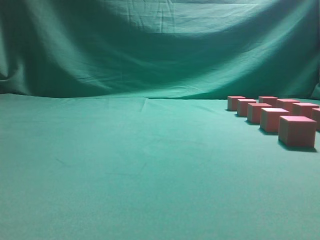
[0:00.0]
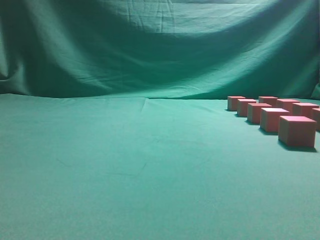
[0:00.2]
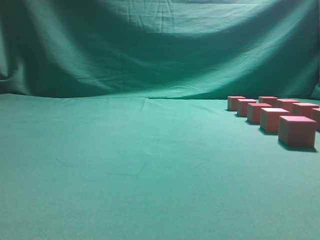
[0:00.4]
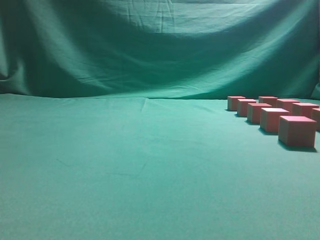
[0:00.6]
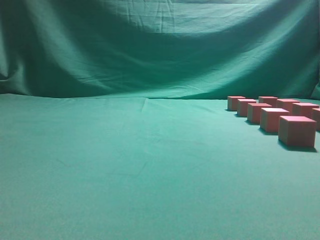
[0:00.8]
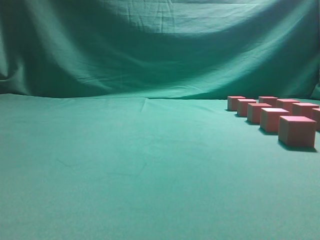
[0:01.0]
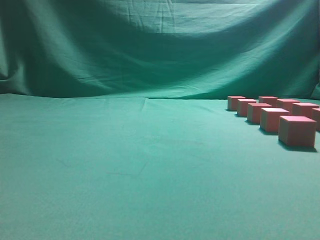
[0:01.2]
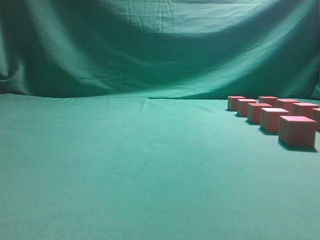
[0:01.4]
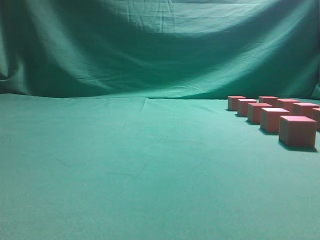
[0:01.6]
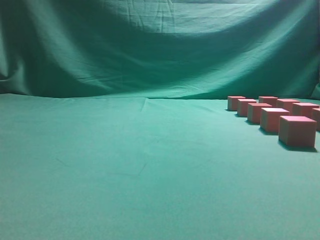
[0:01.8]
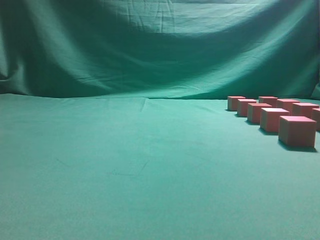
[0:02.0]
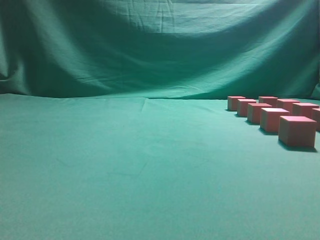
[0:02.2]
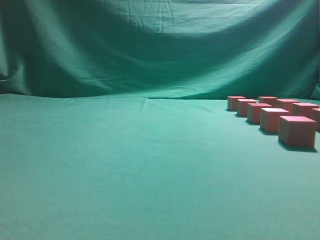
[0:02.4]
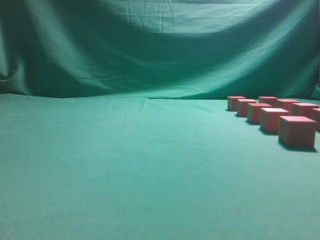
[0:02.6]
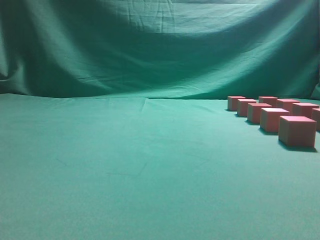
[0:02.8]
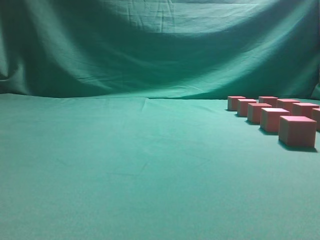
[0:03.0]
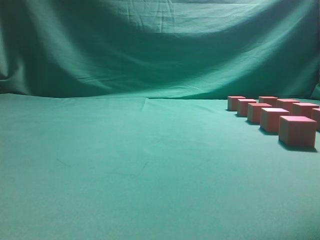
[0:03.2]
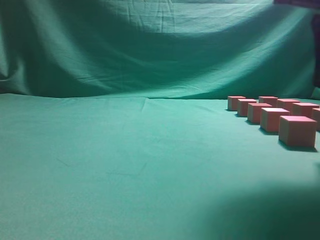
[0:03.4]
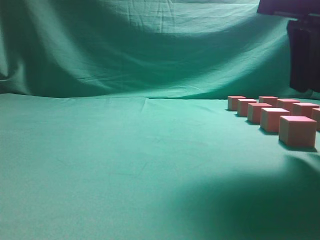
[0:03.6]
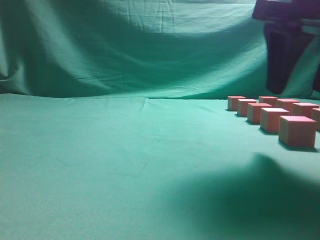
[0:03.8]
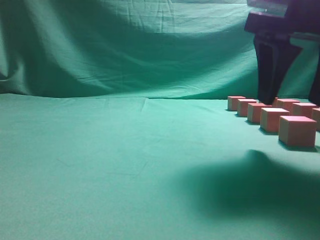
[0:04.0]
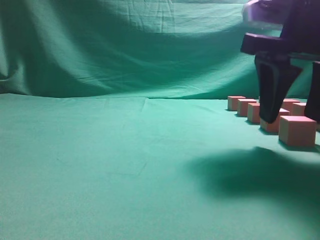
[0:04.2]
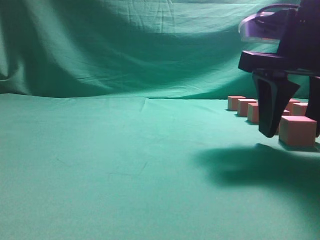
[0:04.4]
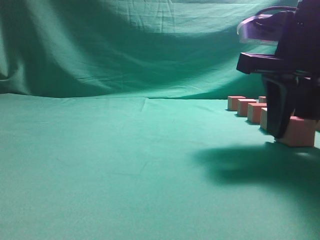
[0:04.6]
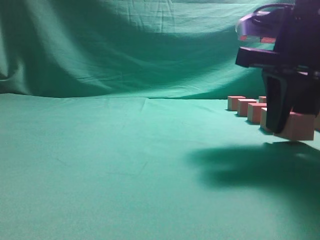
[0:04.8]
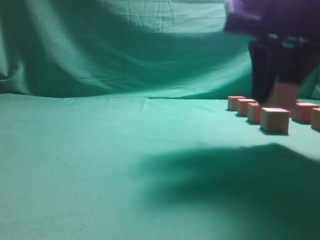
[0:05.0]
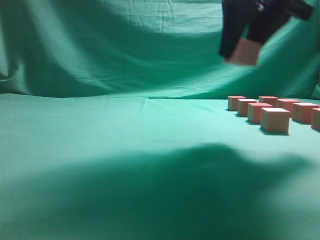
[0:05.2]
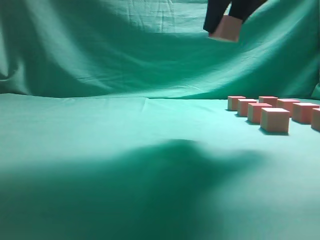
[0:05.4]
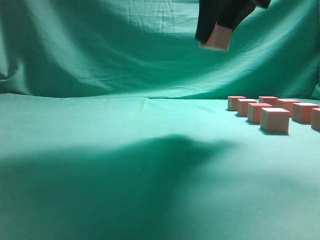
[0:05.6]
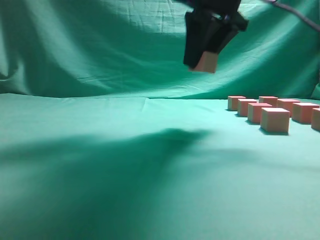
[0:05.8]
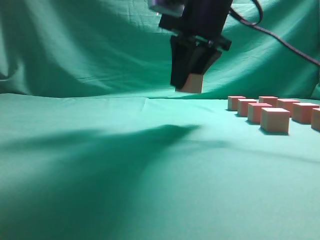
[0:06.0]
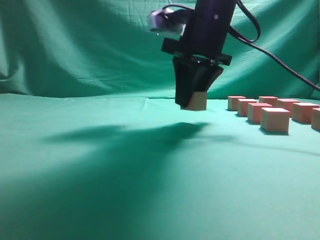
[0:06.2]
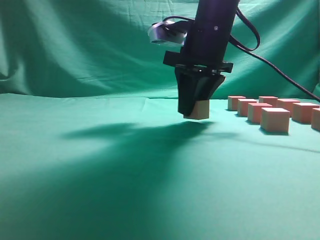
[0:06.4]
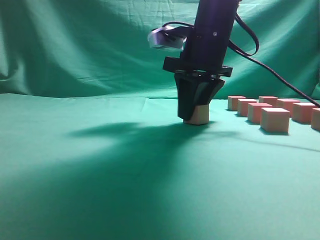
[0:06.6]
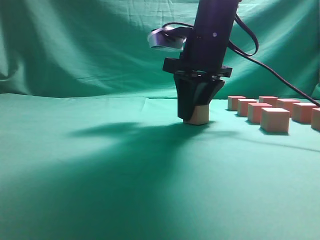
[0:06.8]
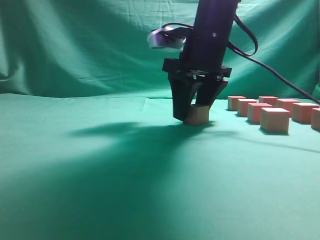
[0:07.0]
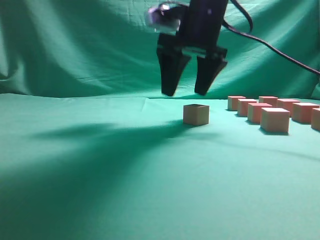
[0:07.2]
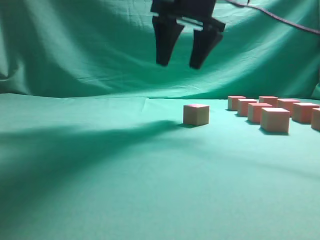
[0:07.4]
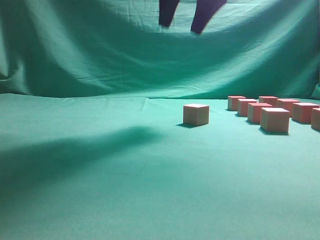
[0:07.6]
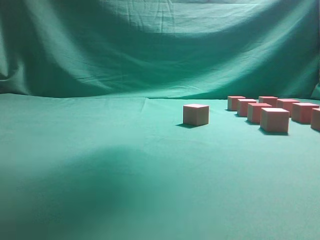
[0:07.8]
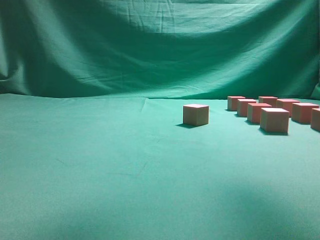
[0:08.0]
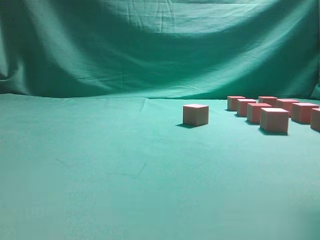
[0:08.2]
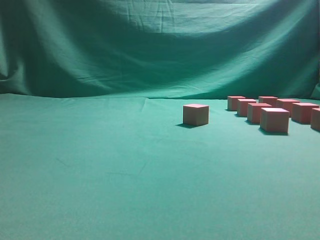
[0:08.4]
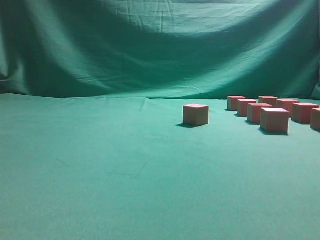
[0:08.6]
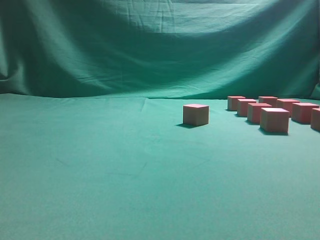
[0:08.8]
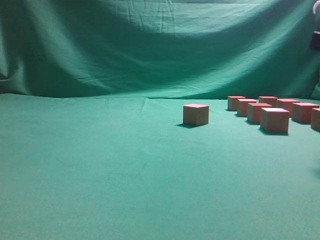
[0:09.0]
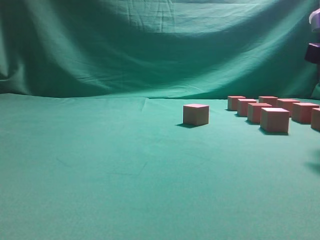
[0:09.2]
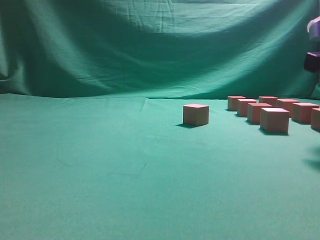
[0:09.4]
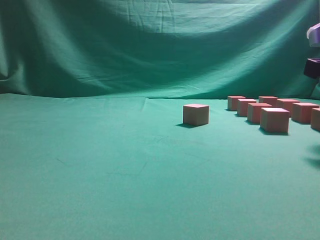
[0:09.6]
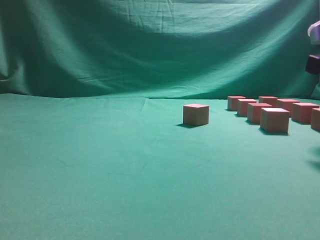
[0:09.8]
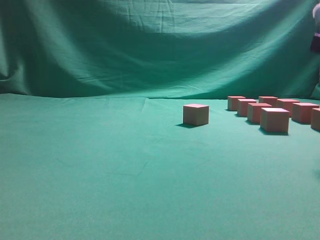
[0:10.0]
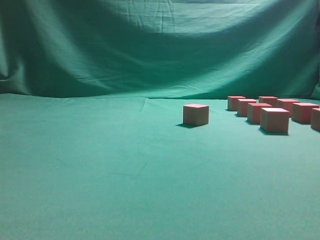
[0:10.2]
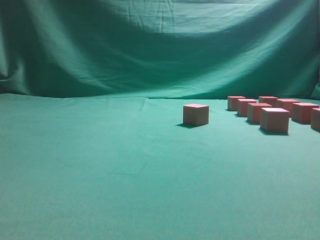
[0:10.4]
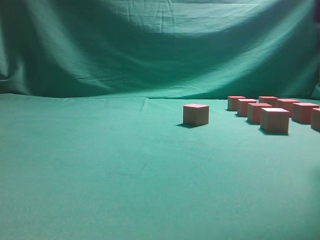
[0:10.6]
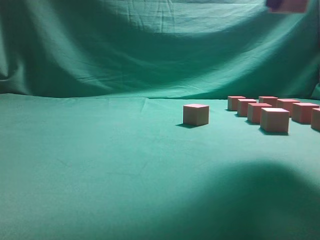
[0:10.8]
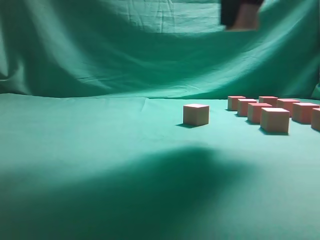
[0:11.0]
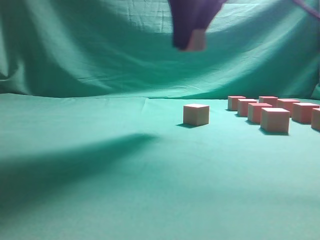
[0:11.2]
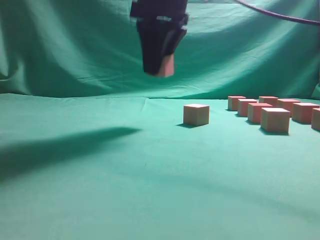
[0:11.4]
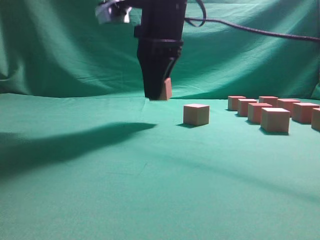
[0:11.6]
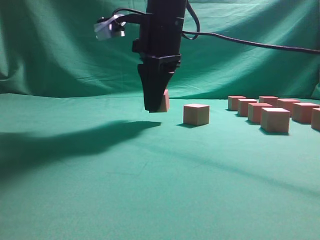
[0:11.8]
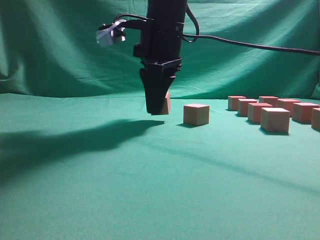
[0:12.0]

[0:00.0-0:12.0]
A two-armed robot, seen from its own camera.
Task of the whole recording: pick up the multiple cubes in two columns one by one and place them in another position on the table.
Step, 0.0 to 5.2 s: Pick up the block on the table.
Step, 5.4 to 7.4 s: Place the block at the correct position to assemble the letter S.
Step, 7.6 to 10.4 s: Pick up the block on the table.
3.0 to 4.4 s: The right gripper heads downward and forward, covering roughly 15 cm, and opens up.
4.4 to 6.0 s: The right gripper goes some 15 cm forward, to the left and upward, and closes.
6.0 to 7.6 s: The right gripper shifts roughly 10 cm upward, and opens up.
7.6 to 9.0 s: The right gripper shifts about 25 cm to the right, downward and backward.
10.4 to 12.0 s: The right gripper is displaced to the left and forward by about 25 cm.

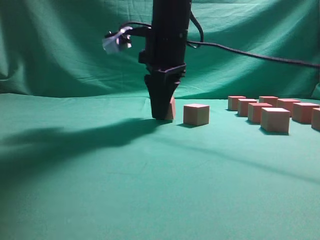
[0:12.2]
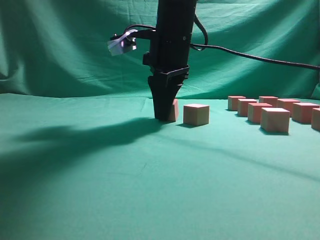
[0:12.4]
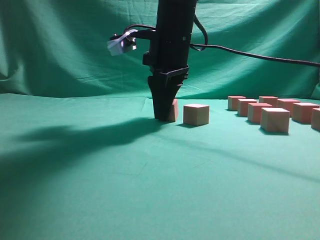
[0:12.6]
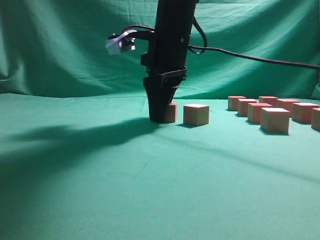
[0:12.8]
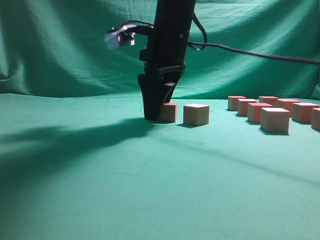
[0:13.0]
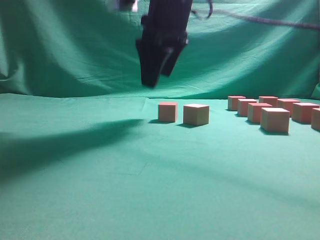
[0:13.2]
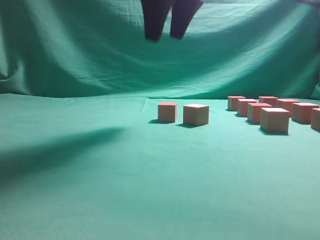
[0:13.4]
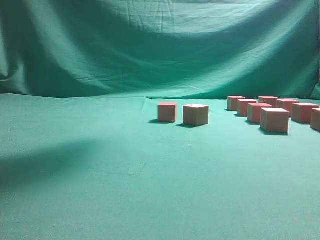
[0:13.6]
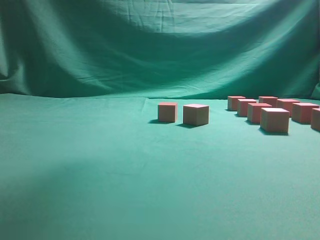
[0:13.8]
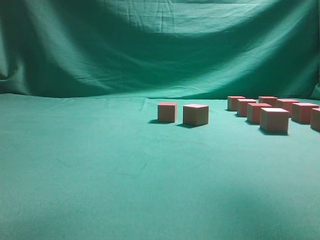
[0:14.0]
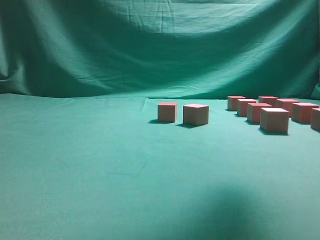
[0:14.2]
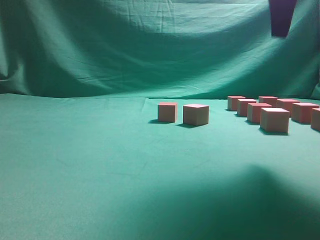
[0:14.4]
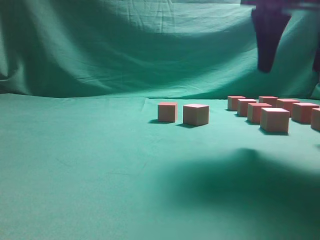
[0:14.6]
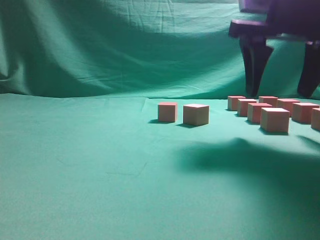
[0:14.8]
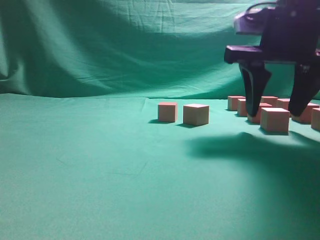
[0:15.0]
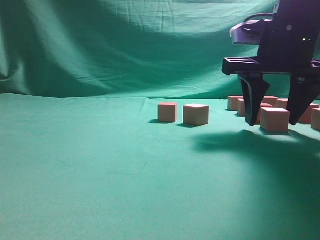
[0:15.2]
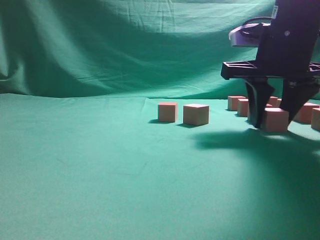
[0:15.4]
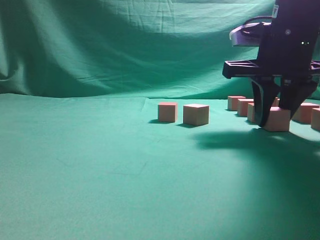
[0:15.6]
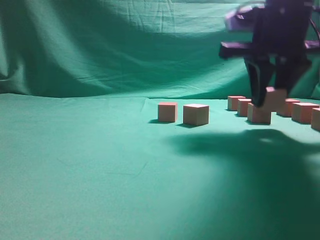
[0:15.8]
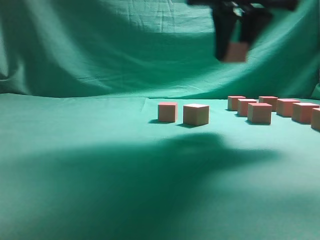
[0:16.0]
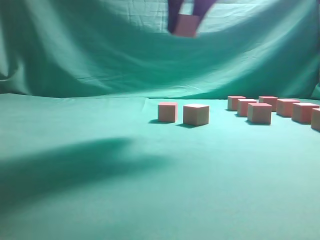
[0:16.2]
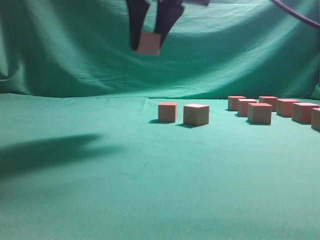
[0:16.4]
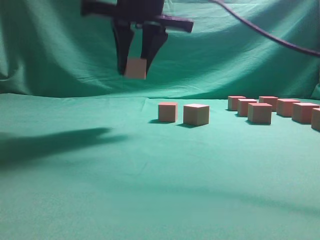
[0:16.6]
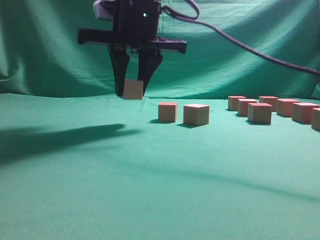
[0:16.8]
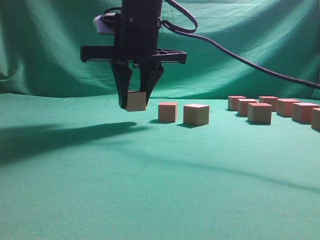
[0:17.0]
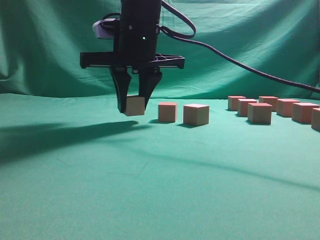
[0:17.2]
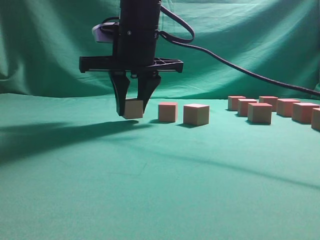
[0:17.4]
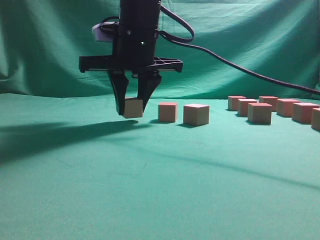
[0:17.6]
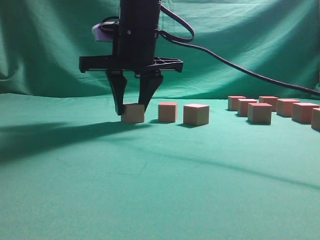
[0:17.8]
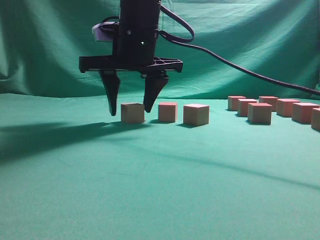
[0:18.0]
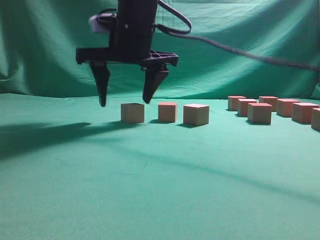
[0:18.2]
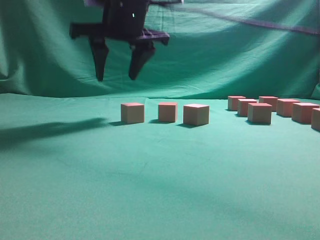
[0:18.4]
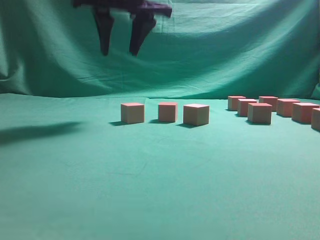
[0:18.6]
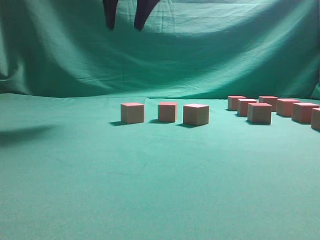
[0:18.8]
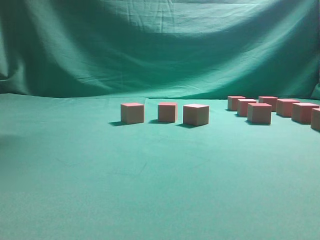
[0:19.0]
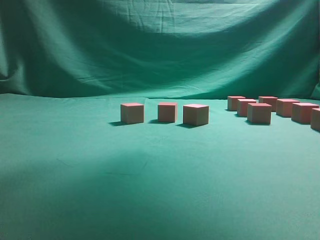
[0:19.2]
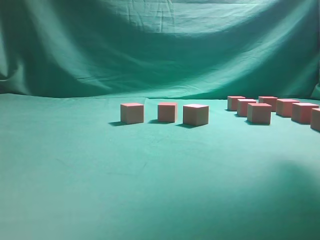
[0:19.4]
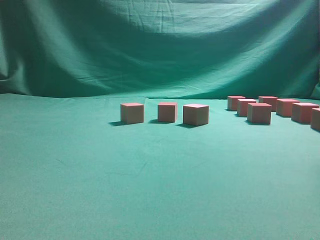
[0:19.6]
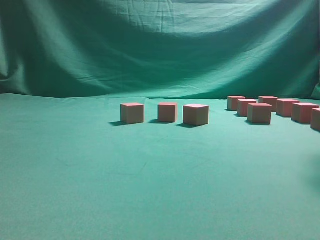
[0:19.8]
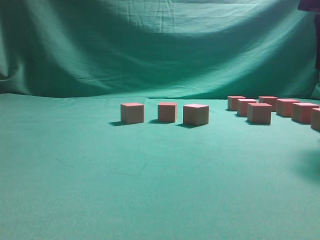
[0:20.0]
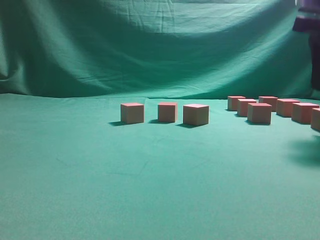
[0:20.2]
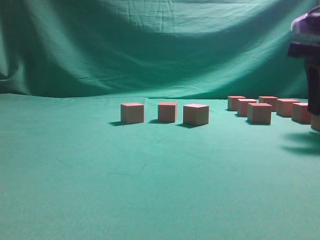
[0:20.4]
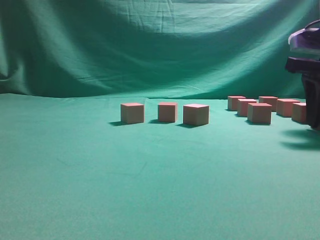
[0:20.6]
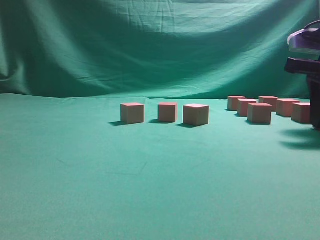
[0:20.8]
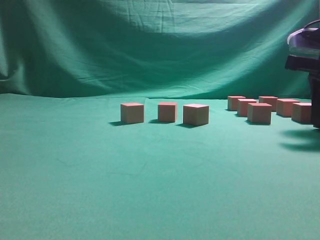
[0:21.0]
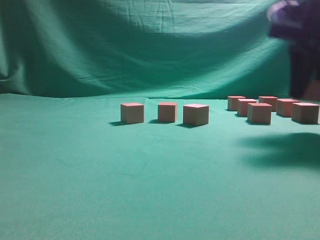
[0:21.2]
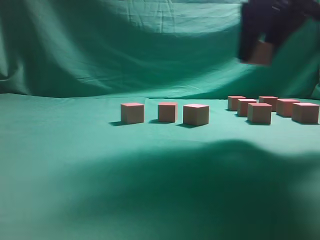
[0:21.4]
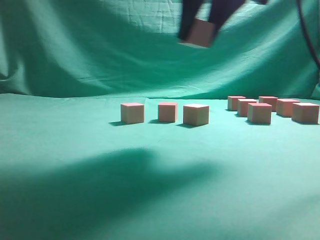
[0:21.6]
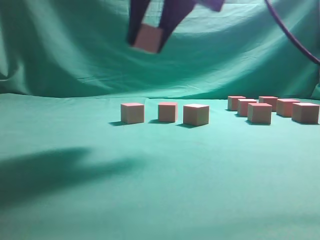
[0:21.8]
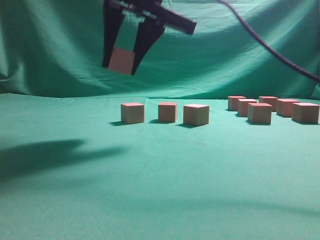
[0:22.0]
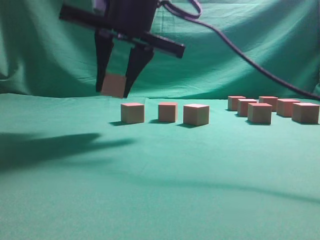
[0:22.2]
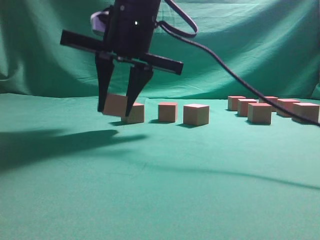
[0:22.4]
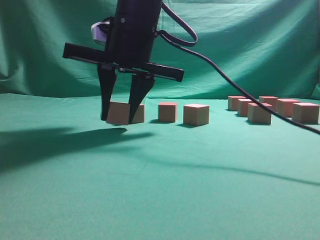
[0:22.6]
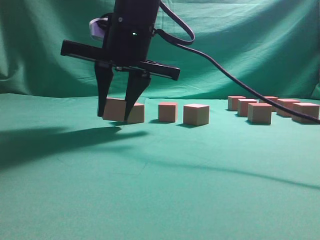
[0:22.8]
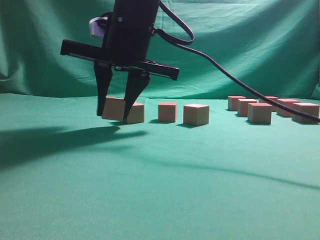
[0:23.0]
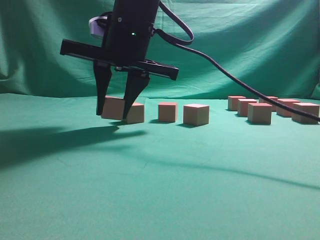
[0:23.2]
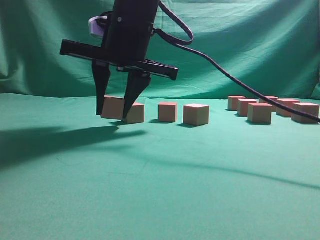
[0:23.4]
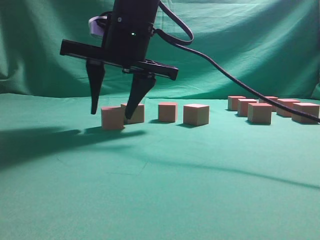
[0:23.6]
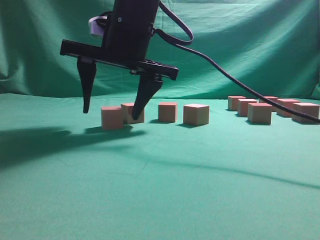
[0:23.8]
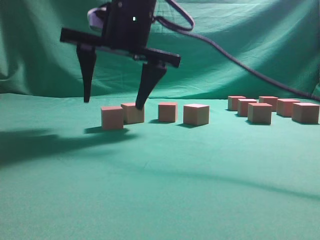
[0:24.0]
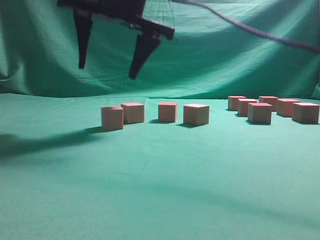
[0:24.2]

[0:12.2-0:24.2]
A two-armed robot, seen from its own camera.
Task of the whole recording: pick up the multiple cubes in two columns one by one and place them in another position on the table.
Step, 13.4 to 16.0 s: Pick up the block on the table.
Step, 16.4 to 18.6 s: Place the block at the correct position to assemble the letter S.
Step, 18.8 to 21.2 s: Pick up the block on the table.
Step, 21.4 to 24.2 s: Place the block at the correct position to assemble the letter S.
12.2 to 13.8 s: The right gripper is displaced upward and to the right by some 25 cm, and opens up.
13.8 to 15.2 s: The right gripper shifts some 25 cm downward.
15.2 to 16.6 s: The right gripper moves to the left, approximately 20 cm.
16.6 to 18.2 s: The right gripper shifts by approximately 5 cm, and opens.
18.2 to 19.8 s: The right gripper travels to the right by roughly 30 cm.
19.8 to 21.2 s: The right gripper moves roughly 5 cm.
21.2 to 22.6 s: The right gripper goes some 25 cm to the left.
22.6 to 24.2 s: The right gripper moves upward, about 5 cm, and opens.
